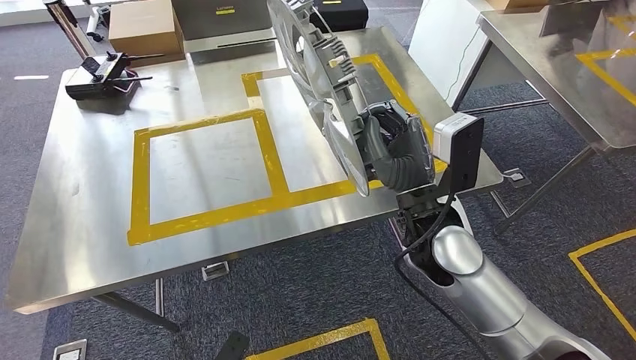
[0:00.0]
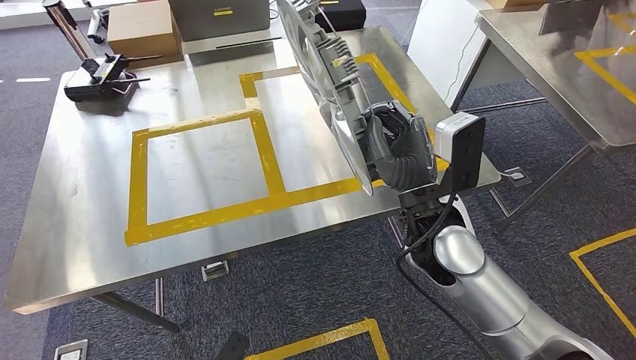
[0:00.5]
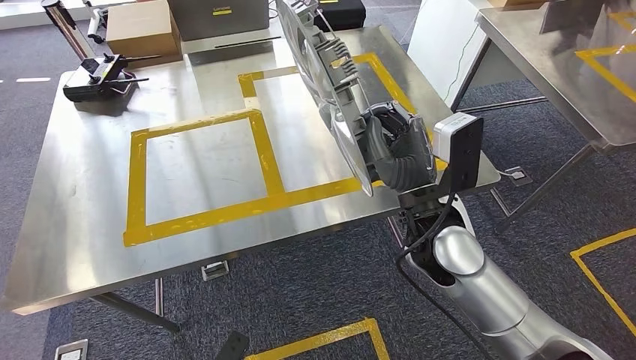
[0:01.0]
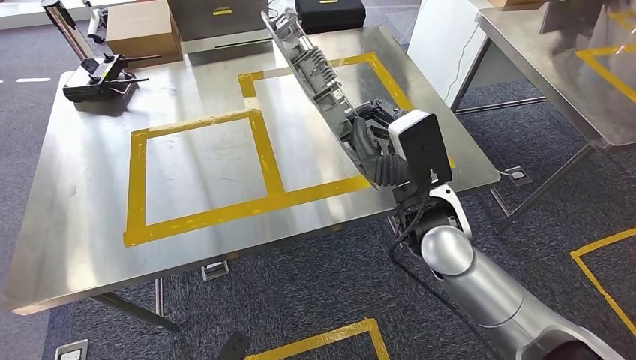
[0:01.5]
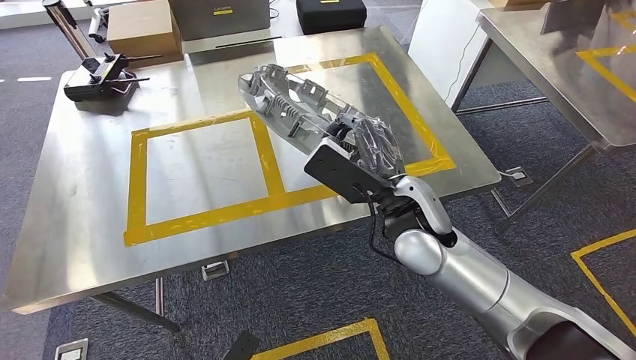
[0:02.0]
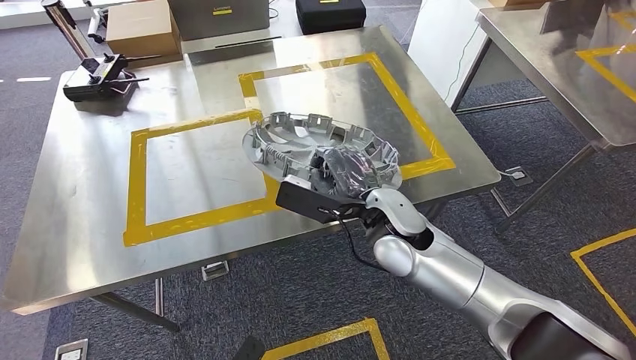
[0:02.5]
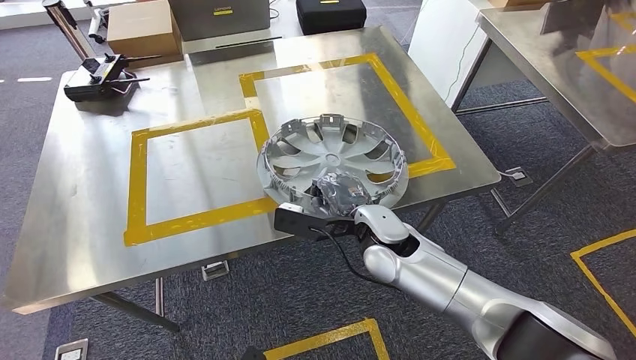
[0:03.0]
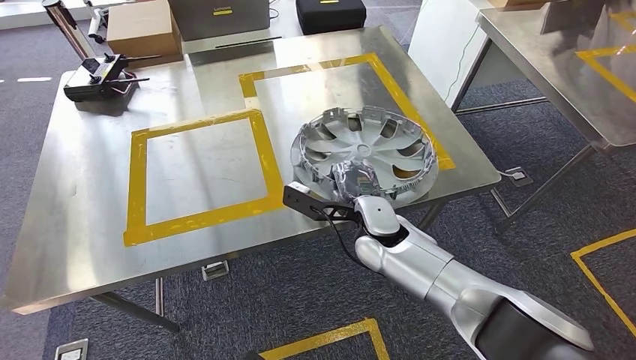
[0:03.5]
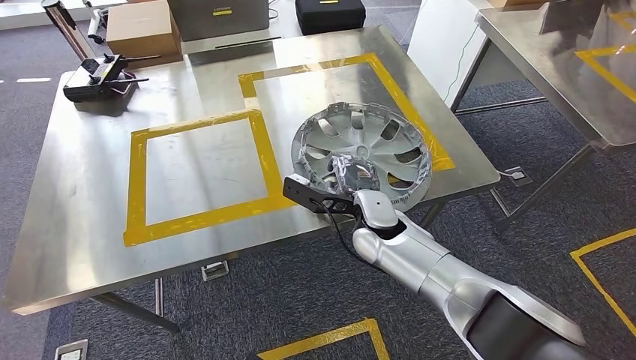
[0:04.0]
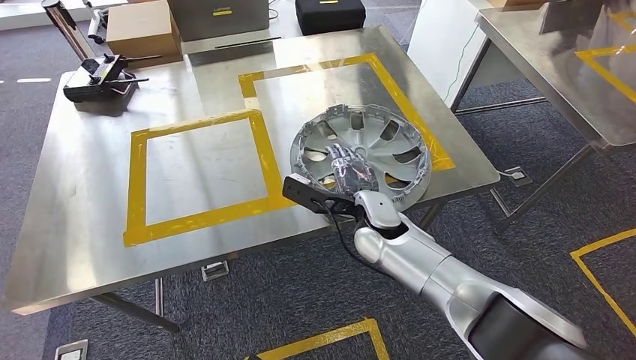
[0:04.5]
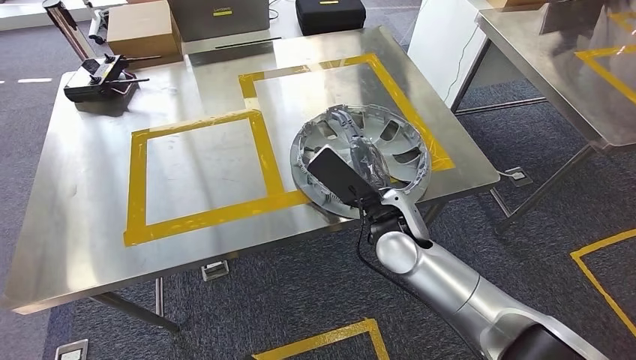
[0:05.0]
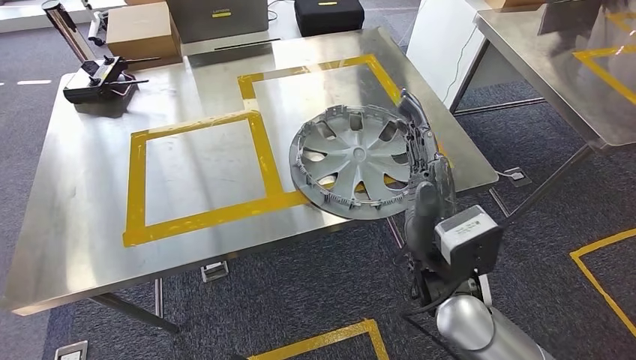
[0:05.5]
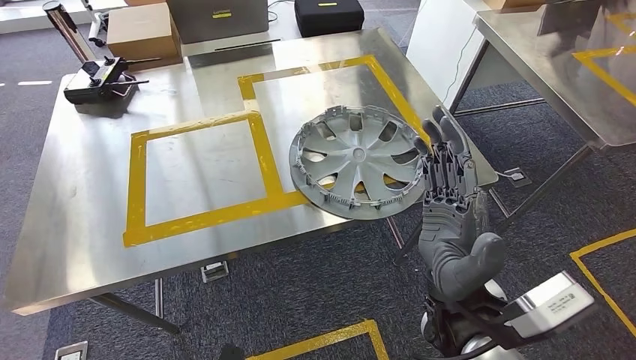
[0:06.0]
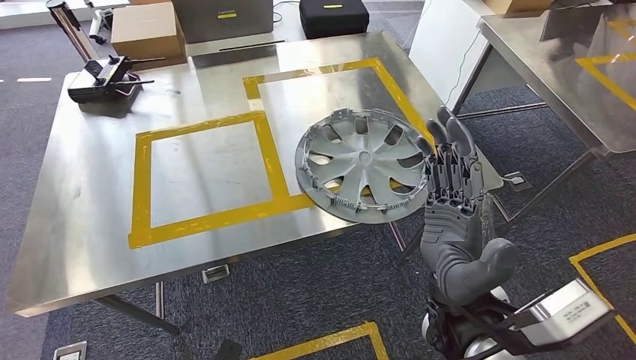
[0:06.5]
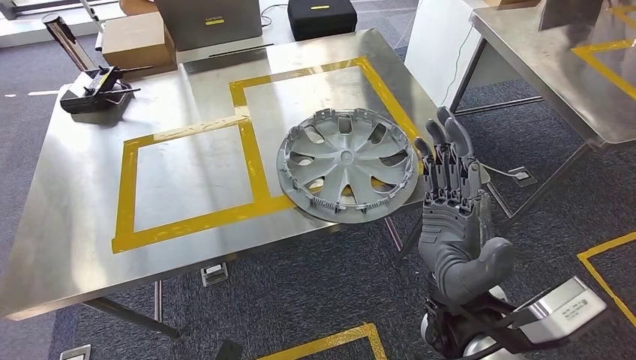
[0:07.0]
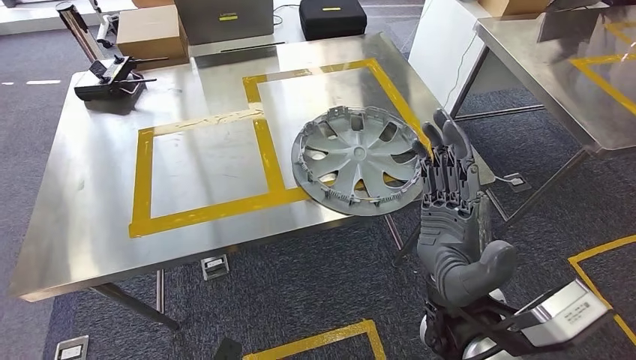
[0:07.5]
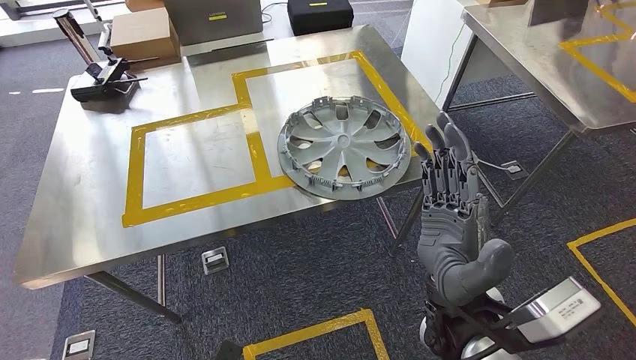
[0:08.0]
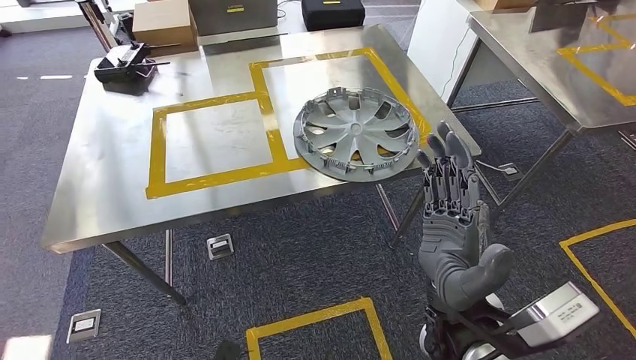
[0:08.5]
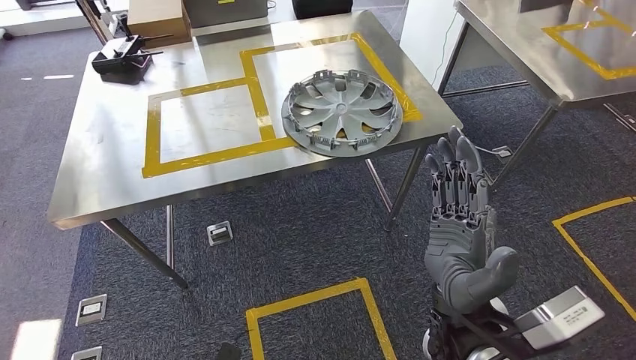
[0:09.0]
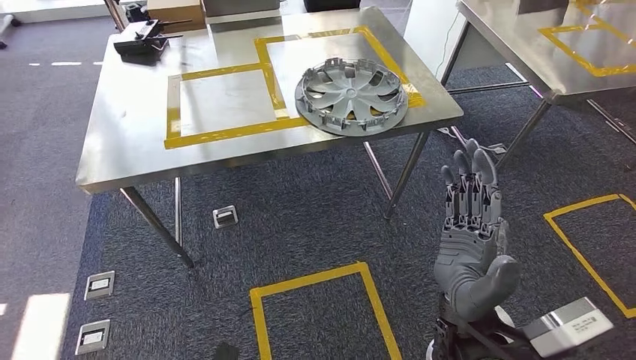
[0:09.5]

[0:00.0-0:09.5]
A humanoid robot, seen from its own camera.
Step, 0:00.0 to 0:03.5: Insert the large material into the corresponding slot on the workbench.
0:02.0 to 0:04.0: The right hand heads downward and forward, covering roughly 10 cm.
0:04.0 to 0:05.5: The right hand moves backward and upward, about 15 cm.

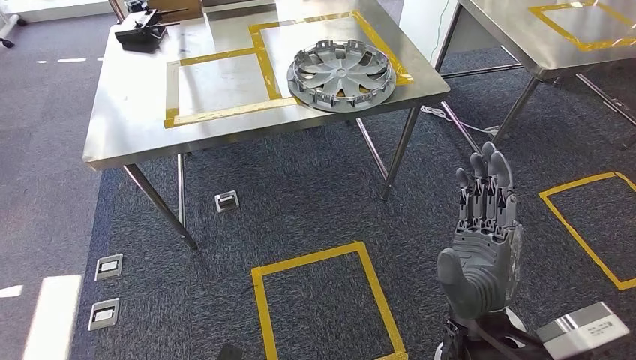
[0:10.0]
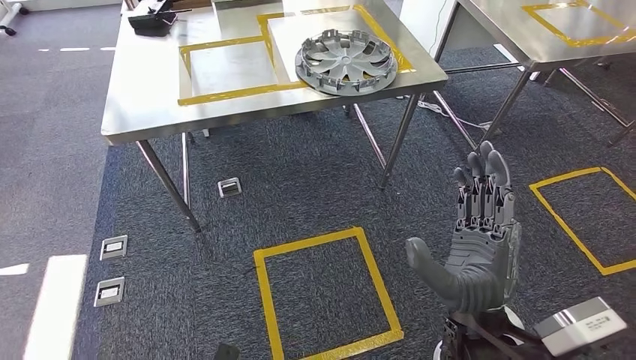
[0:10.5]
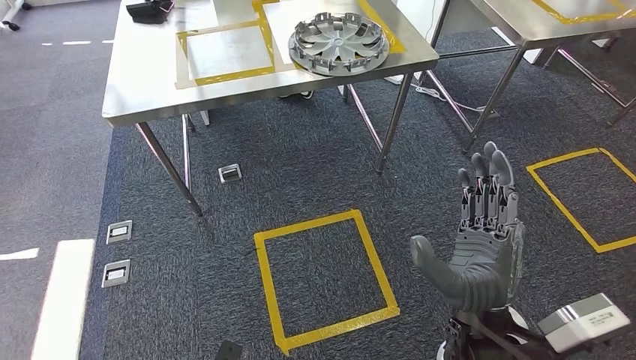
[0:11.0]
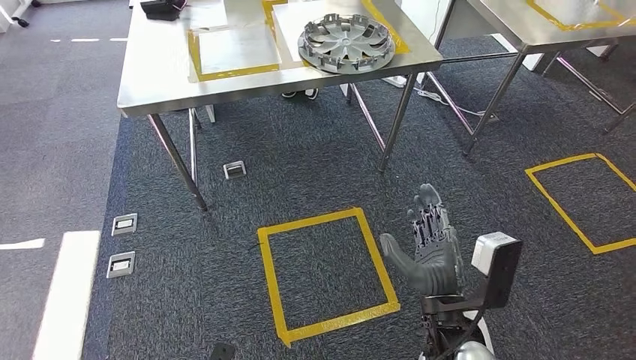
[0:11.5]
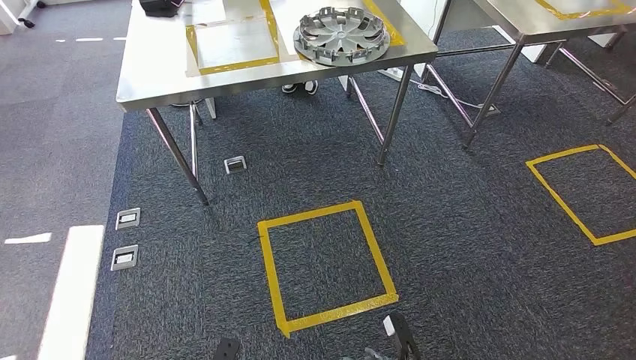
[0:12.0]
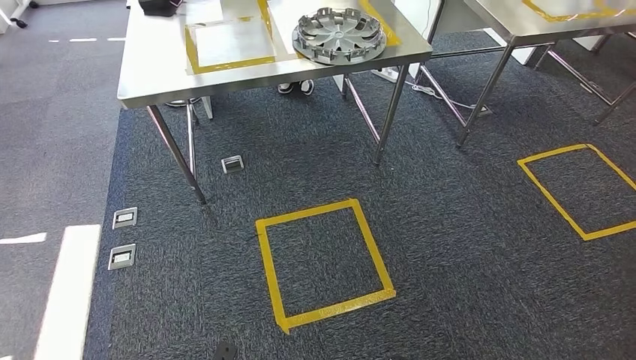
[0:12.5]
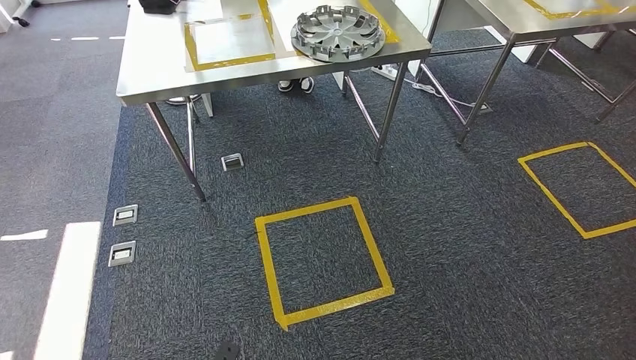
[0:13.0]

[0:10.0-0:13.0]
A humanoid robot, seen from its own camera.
Step, 0:10.0 to 0:13.0: Return to the initial position at the shelf.
0:11.5 to 0:13.0: The right hand shifts some 30 cm downward and backward.
